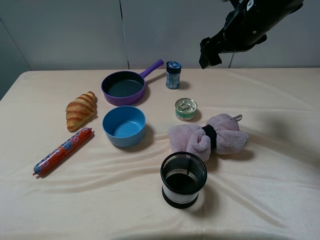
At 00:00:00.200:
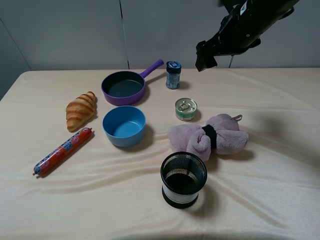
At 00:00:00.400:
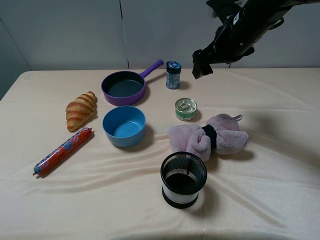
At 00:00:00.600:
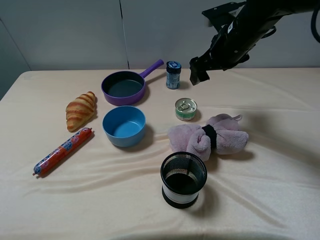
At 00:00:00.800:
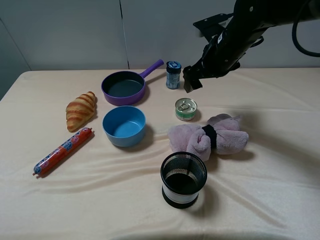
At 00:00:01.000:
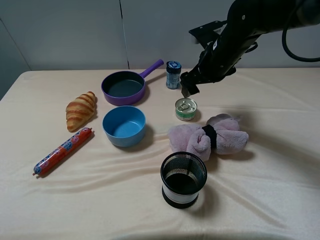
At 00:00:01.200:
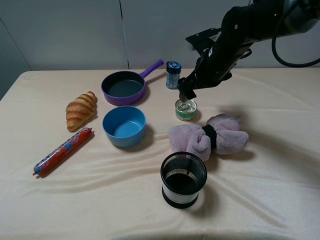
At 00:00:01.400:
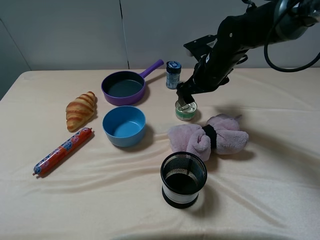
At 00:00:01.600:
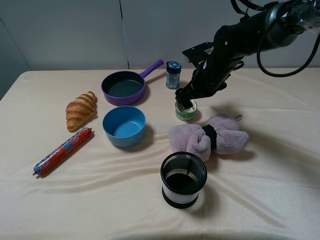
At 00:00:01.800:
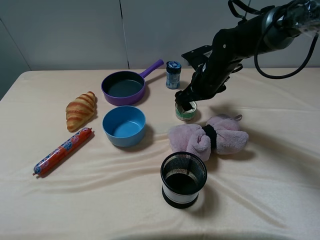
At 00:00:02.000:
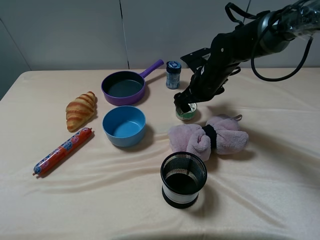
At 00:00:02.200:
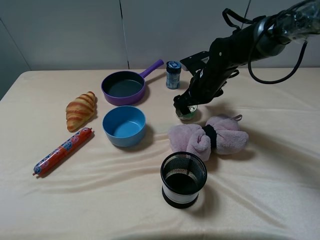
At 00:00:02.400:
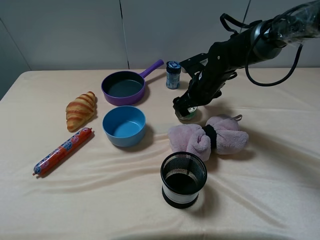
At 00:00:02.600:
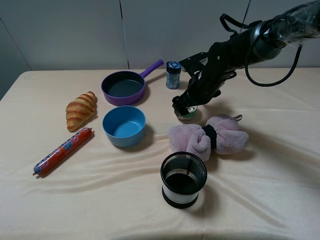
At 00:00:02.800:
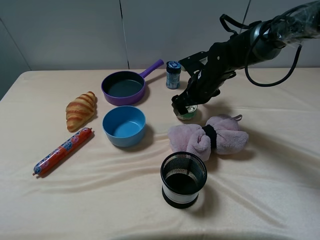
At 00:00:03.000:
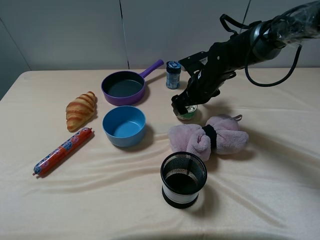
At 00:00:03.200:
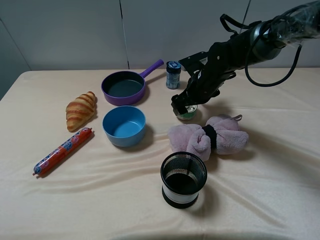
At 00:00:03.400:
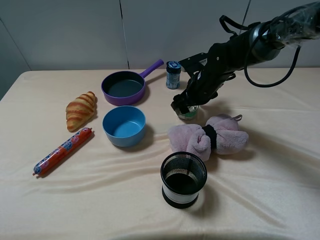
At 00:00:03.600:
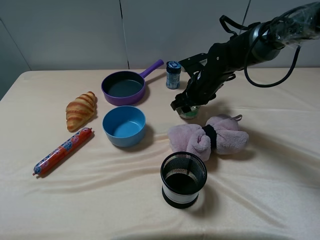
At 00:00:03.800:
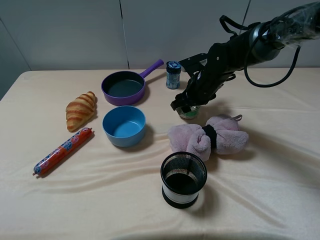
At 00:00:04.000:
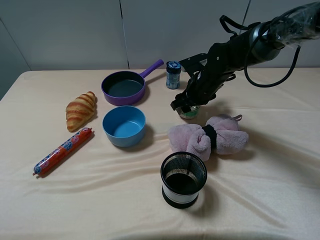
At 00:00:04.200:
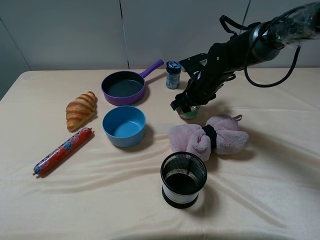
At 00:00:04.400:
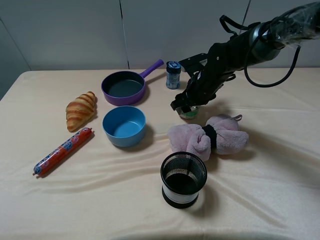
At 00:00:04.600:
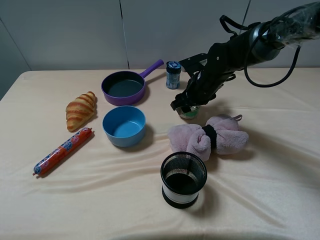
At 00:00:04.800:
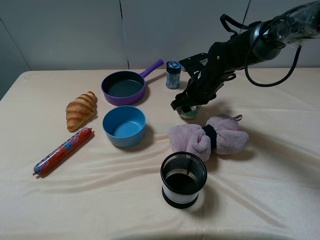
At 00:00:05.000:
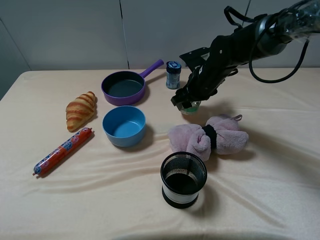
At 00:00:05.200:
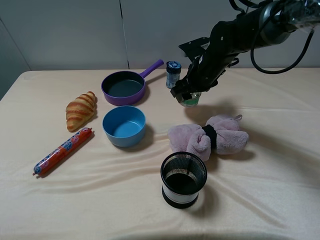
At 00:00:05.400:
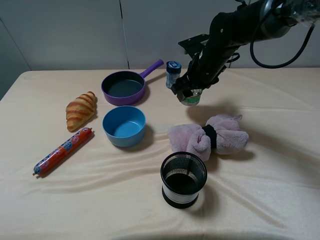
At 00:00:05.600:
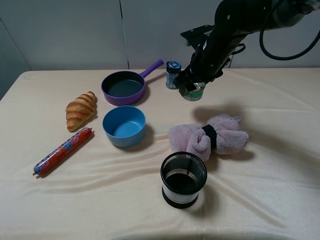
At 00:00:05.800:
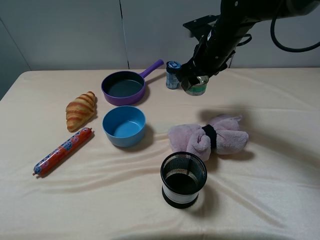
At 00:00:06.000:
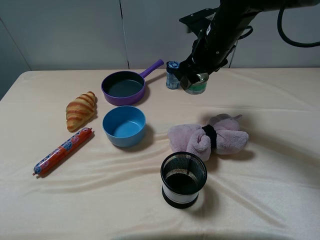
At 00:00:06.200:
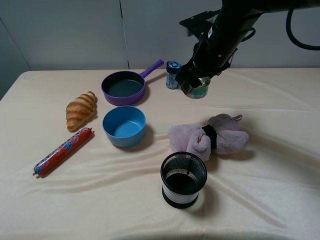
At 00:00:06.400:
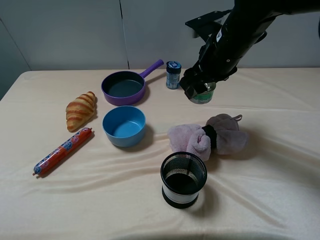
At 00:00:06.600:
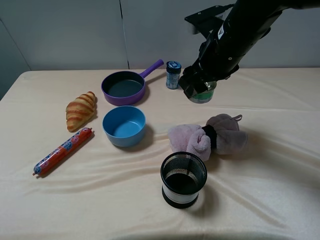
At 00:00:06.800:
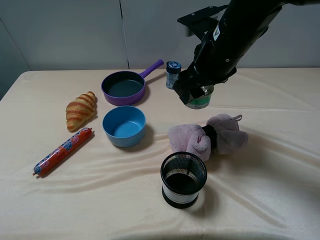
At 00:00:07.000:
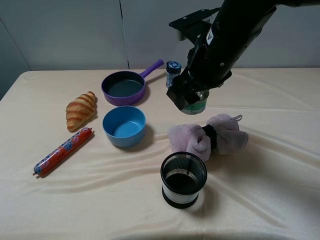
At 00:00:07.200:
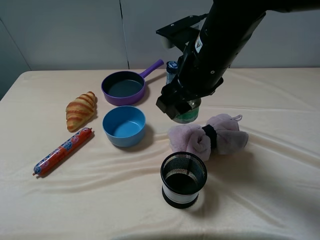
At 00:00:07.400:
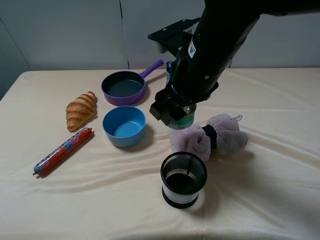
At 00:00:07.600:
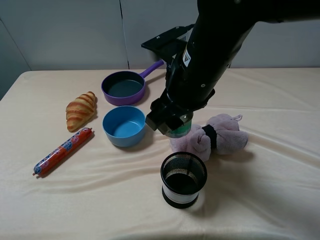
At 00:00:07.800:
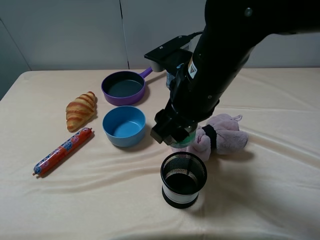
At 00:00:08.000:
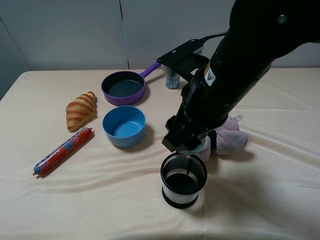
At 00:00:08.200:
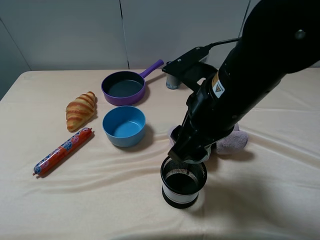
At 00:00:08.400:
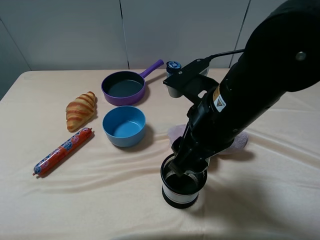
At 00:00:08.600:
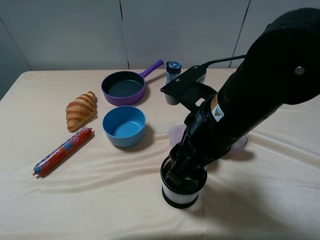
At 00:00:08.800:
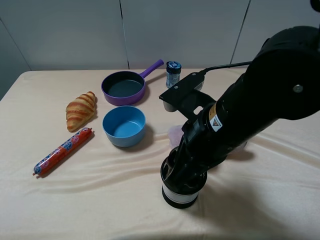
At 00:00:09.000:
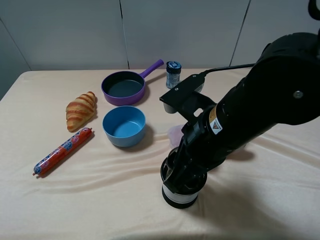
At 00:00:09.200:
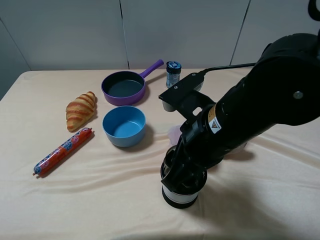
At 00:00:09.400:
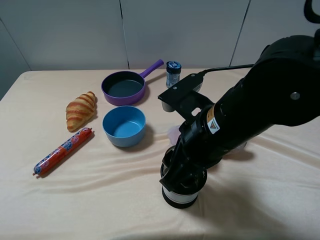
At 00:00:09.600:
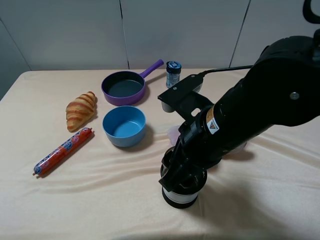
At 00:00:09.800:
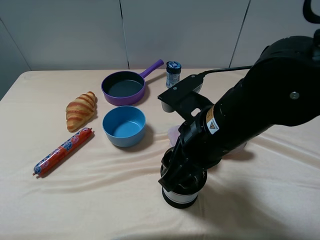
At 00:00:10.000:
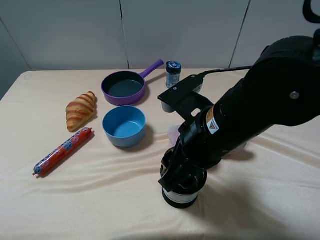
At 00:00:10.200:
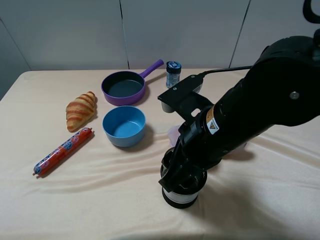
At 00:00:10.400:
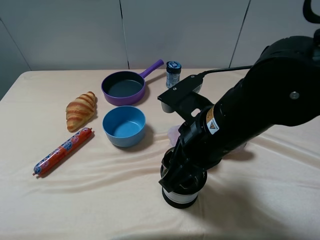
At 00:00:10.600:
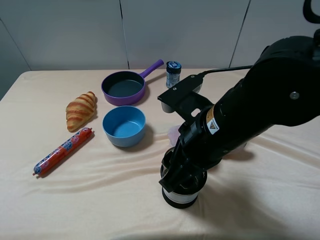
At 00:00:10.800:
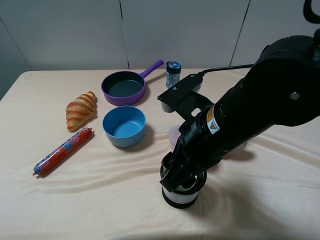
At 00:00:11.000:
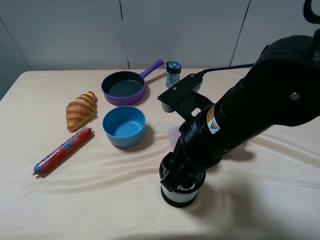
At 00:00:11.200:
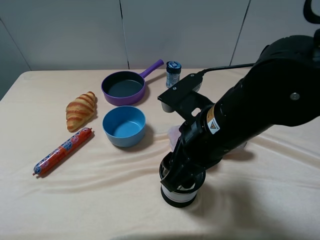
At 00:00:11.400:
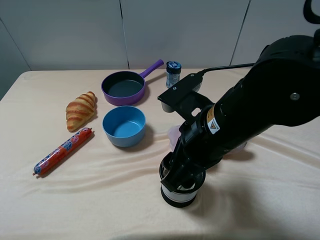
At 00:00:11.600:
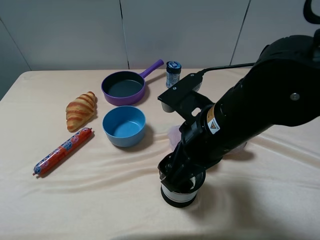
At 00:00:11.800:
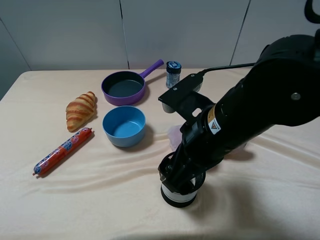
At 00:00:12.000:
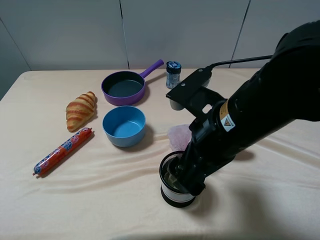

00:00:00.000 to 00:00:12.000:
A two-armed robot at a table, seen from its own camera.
Task of the whole recording: pick up an item with a gripper and place it in a random container on the table.
Step, 00:00:00.000 to 00:00:03.400: Grasp the tin with the right gripper.
Step, 00:00:03.600 to 00:00:11.200: Place the tin into the pen container with the right gripper.
00:00:00.000 to 00:00:01.600: The right gripper shifts approximately 15 cm downward.
00:00:01.600 to 00:00:03.000: The grippers stay close to where they were, moving slightly.
00:00:03.000 to 00:00:04.400: The right gripper closes up.
00:00:04.400 to 00:00:06.000: The right gripper travels upward by some 10 cm.
00:00:06.000 to 00:00:07.600: The right gripper heads backward, covering about 15 cm.
00:00:07.600 to 00:00:09.000: The right gripper is displaced backward by about 5 cm.
00:00:09.000 to 00:00:10.400: The two grippers keep their place.
00:00:10.400 to 00:00:12.000: The right gripper opens up.

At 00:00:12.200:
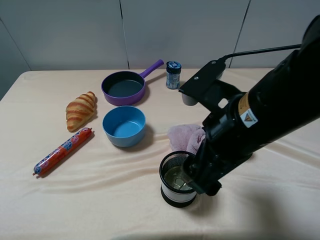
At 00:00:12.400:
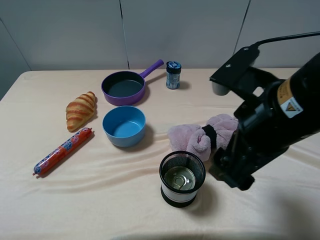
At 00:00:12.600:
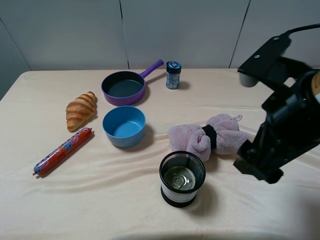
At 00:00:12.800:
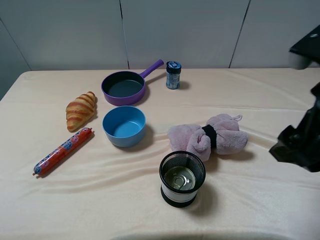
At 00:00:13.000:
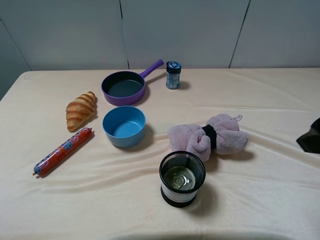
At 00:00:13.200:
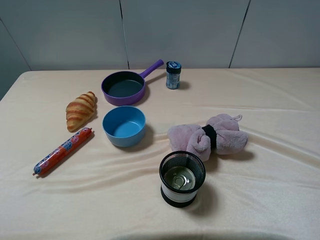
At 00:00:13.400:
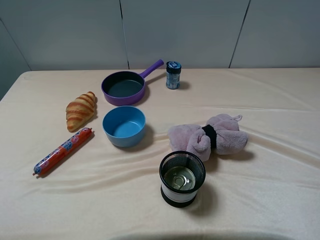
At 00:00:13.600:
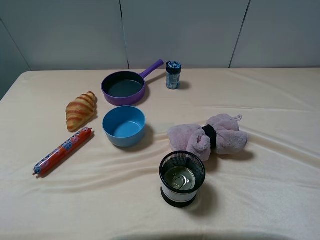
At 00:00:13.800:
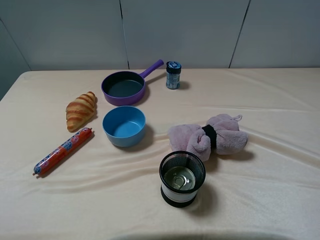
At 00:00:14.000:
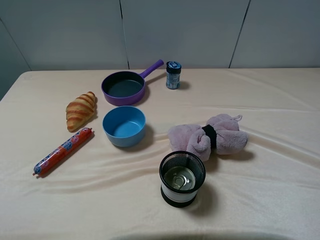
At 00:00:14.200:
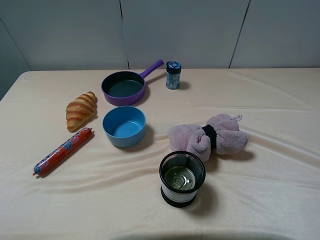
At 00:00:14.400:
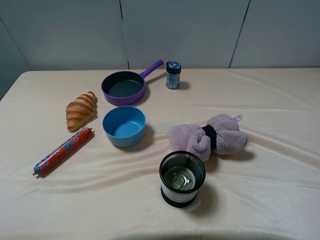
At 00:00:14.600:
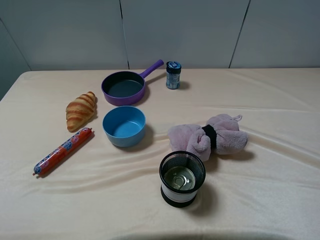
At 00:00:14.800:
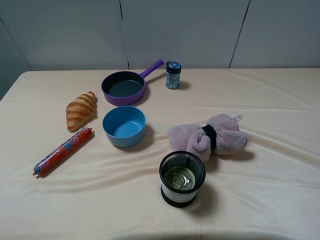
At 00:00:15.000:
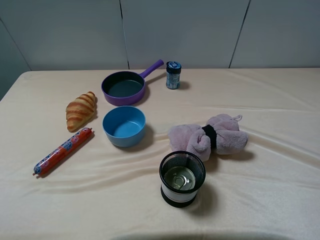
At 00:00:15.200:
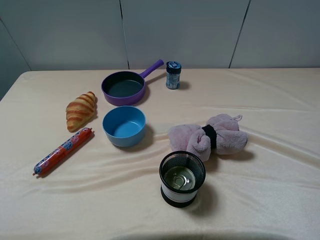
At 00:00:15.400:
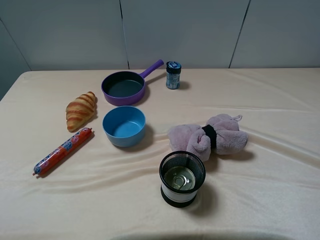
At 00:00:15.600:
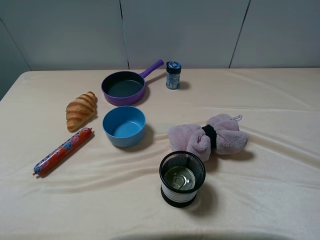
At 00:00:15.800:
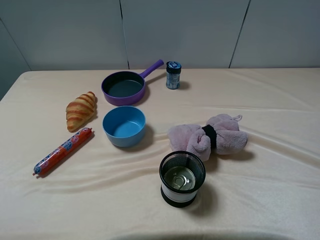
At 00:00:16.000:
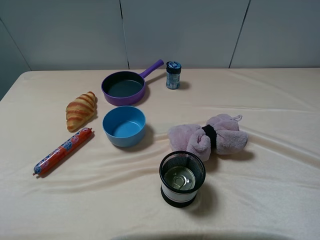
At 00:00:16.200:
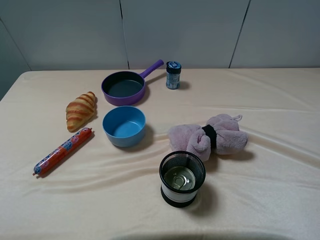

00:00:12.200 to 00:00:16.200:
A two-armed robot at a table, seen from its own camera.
Task of the whole recording: pick up an item with a gripper and place it in a random container on the table.
00:00:12.200 to 00:00:13.600: The right gripper goes approximately 20 cm to the right.
